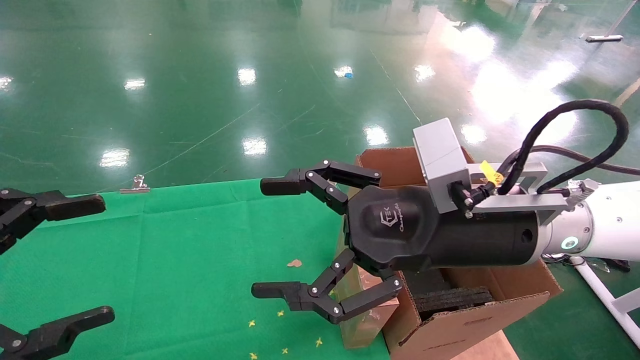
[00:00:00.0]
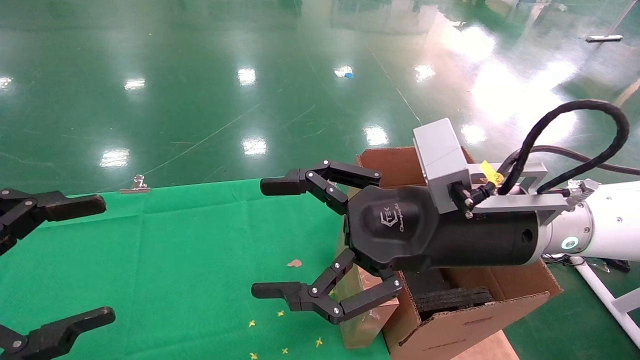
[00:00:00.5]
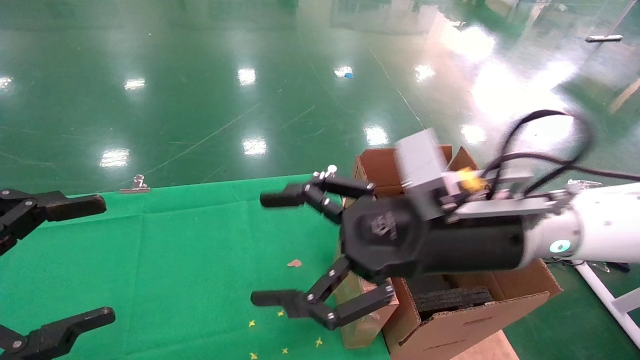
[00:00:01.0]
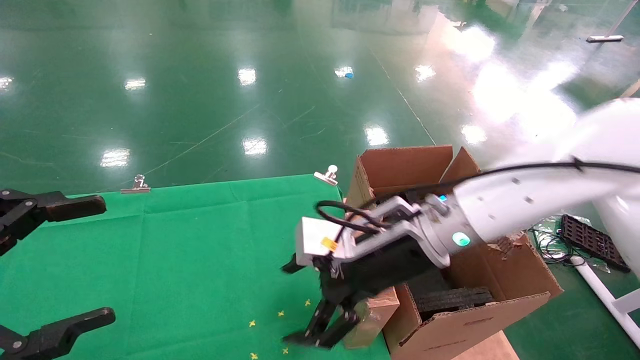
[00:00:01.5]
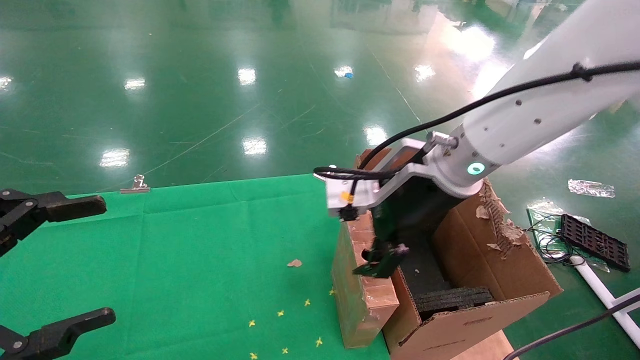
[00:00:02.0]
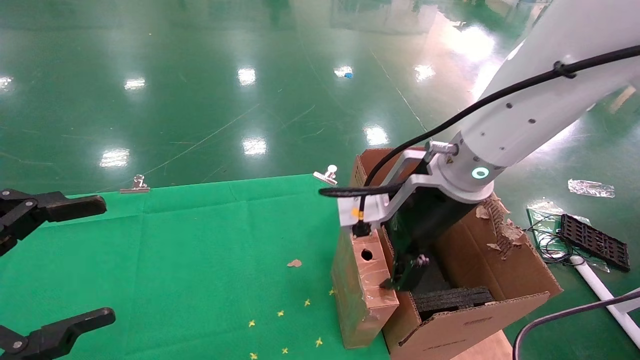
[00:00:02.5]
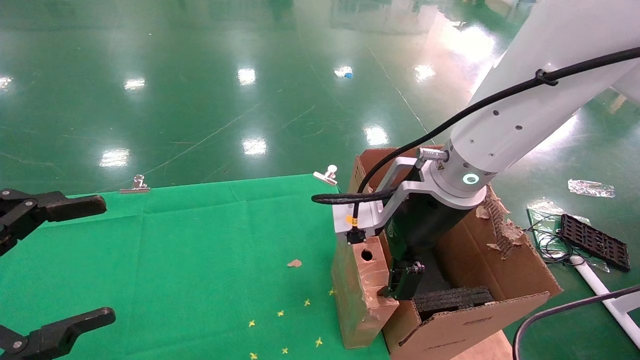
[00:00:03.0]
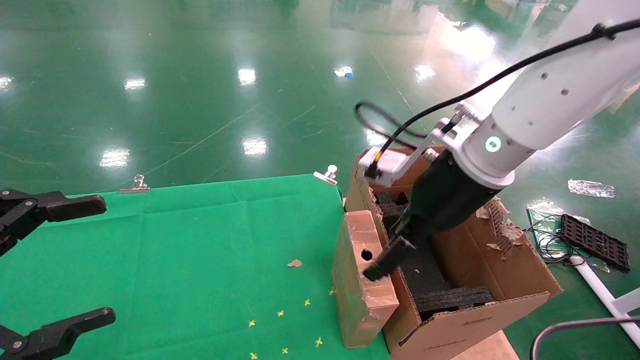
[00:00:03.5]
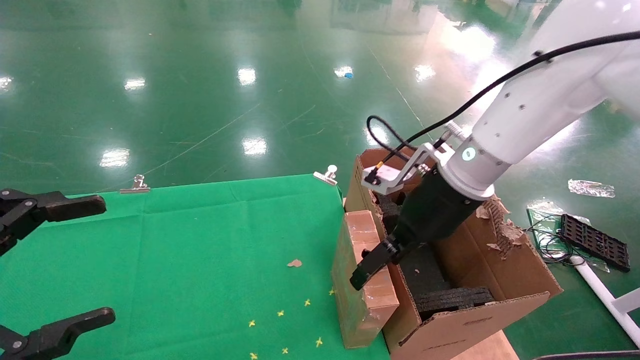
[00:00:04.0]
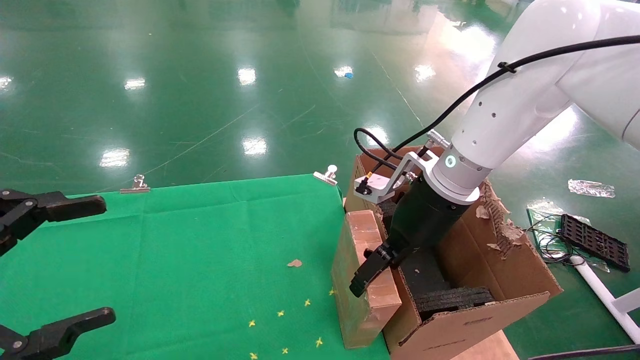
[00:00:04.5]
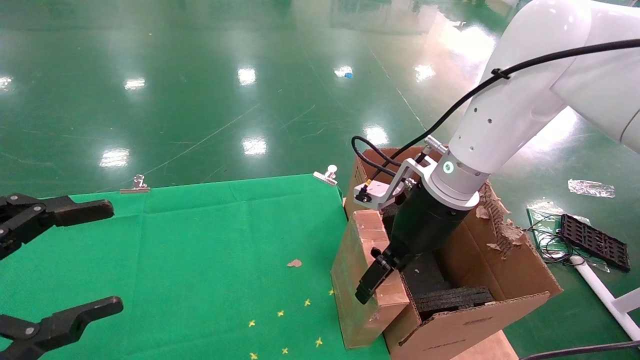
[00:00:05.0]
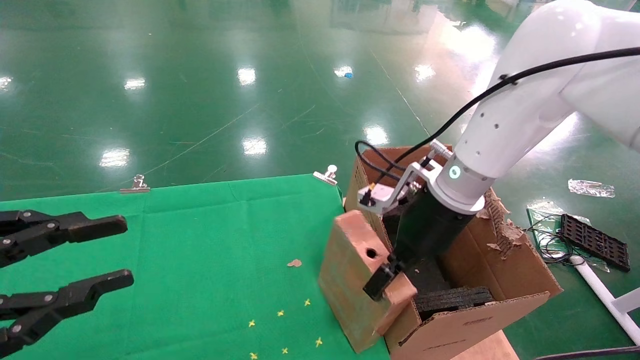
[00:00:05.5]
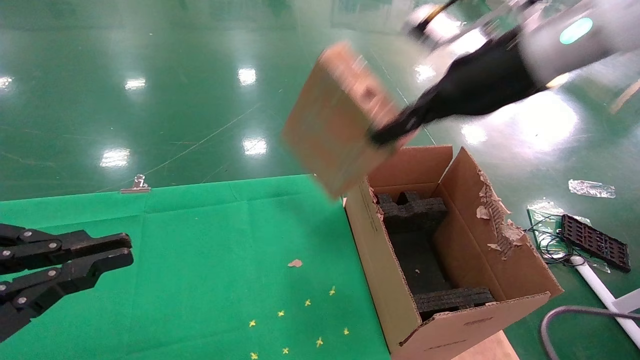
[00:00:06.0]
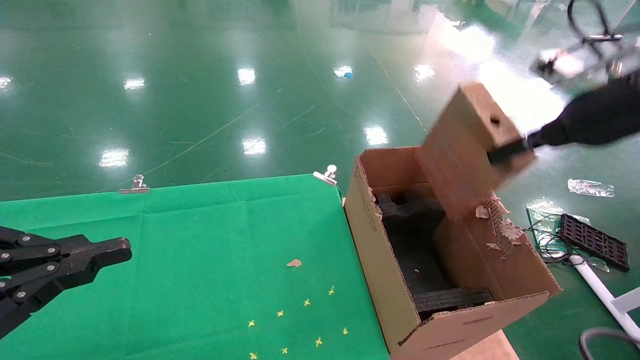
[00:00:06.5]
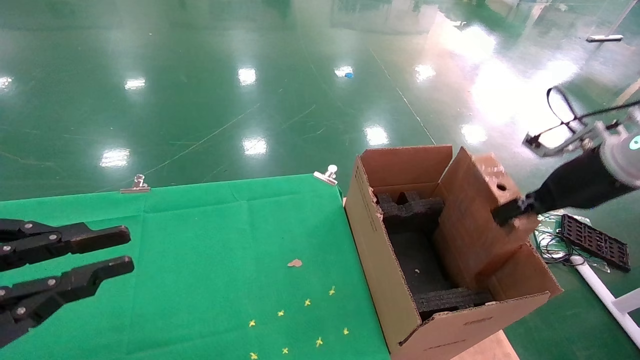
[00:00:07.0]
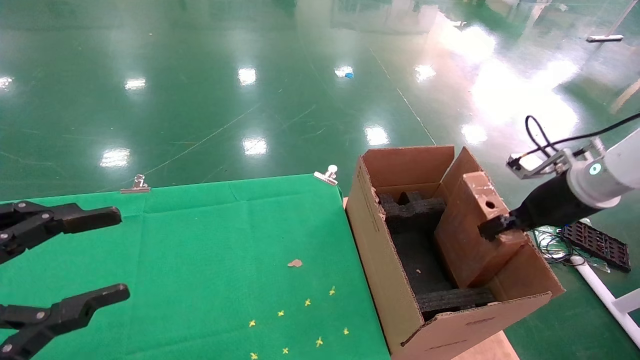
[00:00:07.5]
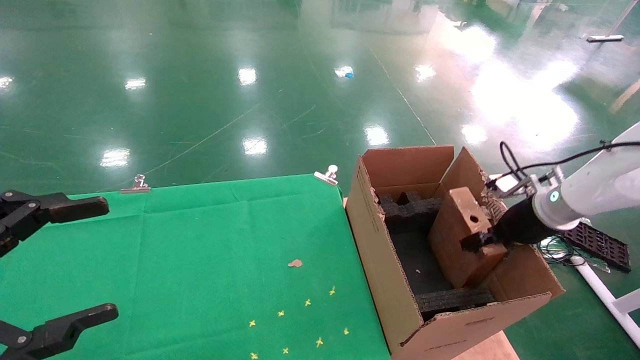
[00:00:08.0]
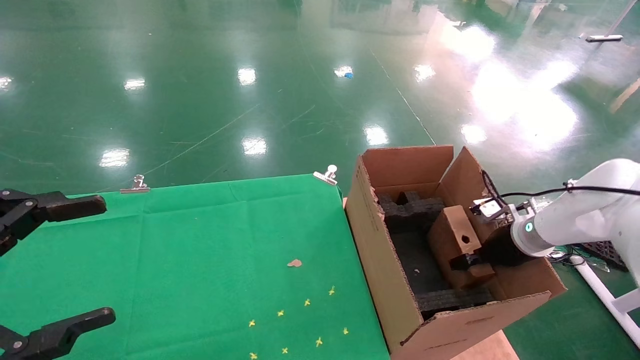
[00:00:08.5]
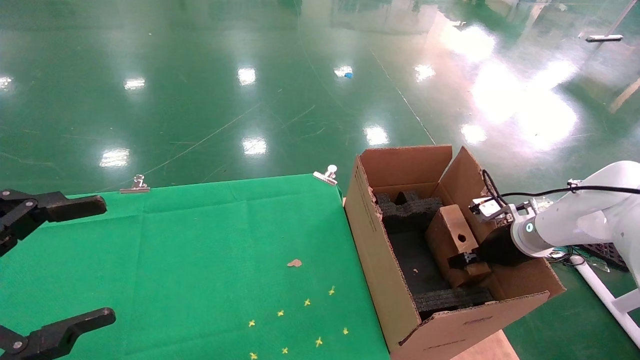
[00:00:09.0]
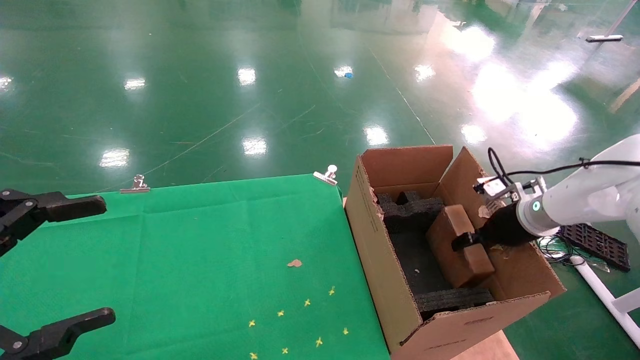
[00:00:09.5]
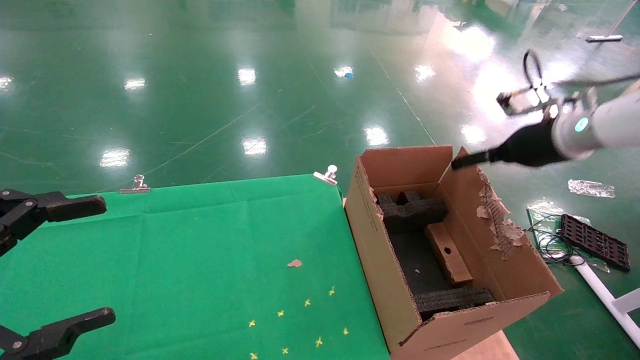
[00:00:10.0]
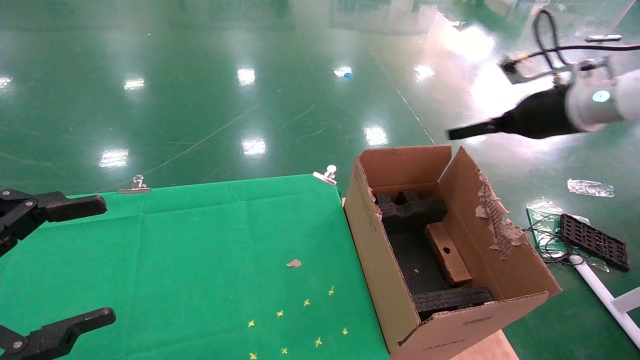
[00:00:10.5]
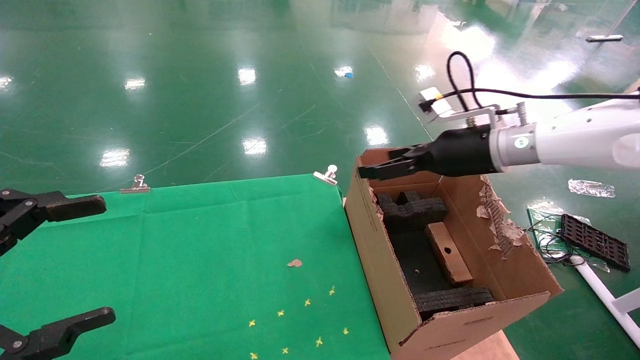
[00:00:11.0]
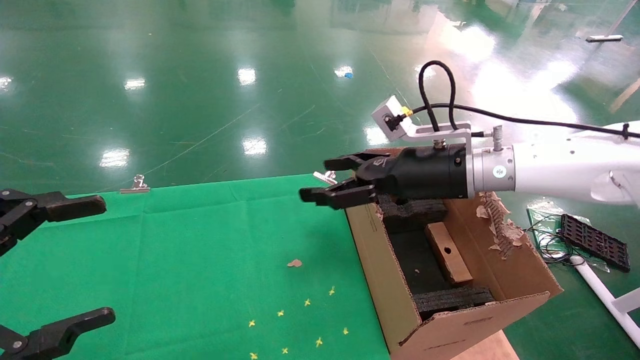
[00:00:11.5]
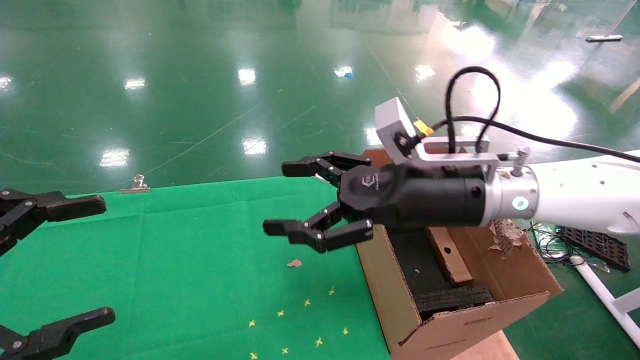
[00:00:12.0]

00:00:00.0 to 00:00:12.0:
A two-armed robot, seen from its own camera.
Task of the whole recording: using a robotic arm to pick up a cardboard box and palace it the carton.
Step, 00:00:01.0 to 00:00:05.5: Pick up the mouse and the power cord paper box.
Step, 00:00:06.0 to 00:00:10.0: Place the mouse and the power cord paper box into the container.
00:00:00.0 to 00:00:02.0: The right gripper travels forward by some 10 cm.
00:00:02.0 to 00:00:04.0: The right gripper shifts by roughly 5 cm.
00:00:04.0 to 00:00:06.0: The left gripper closes up; the right gripper moves upward and to the right, roughly 15 cm, and closes its fingers.
00:00:06.0 to 00:00:08.0: The left gripper opens its fingers; the right gripper heads downward and to the right, covering about 30 cm.
00:00:08.0 to 00:00:10.0: The right gripper heads upward, covering roughly 10 cm, and opens its fingers.
00:00:10.0 to 00:00:12.0: The right gripper heads to the left, covering some 25 cm.

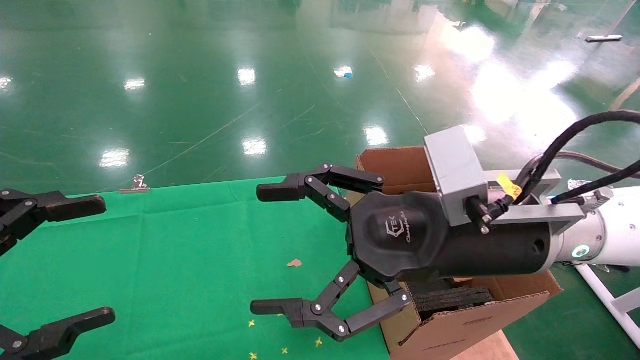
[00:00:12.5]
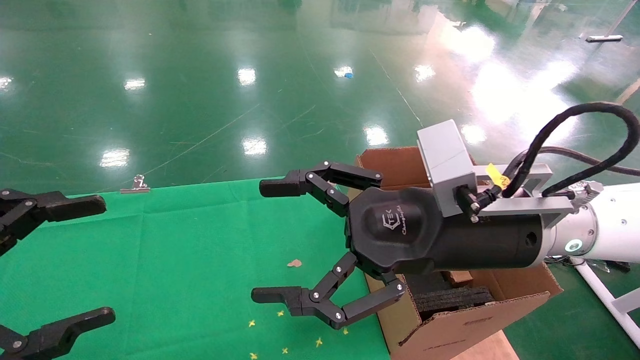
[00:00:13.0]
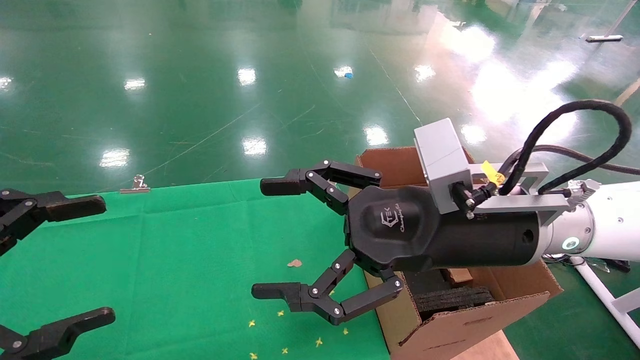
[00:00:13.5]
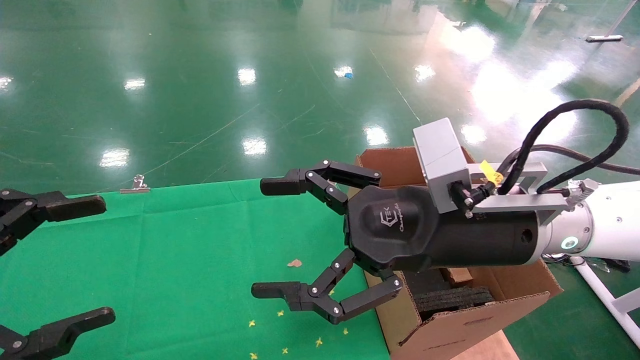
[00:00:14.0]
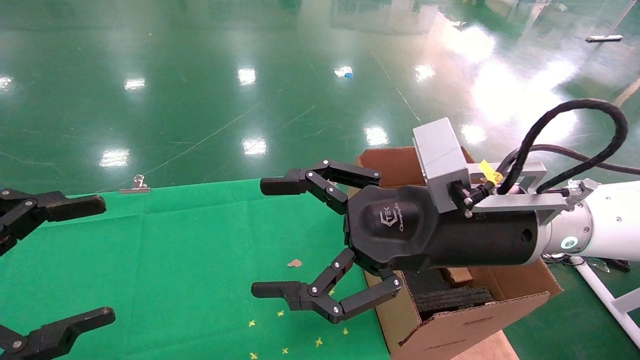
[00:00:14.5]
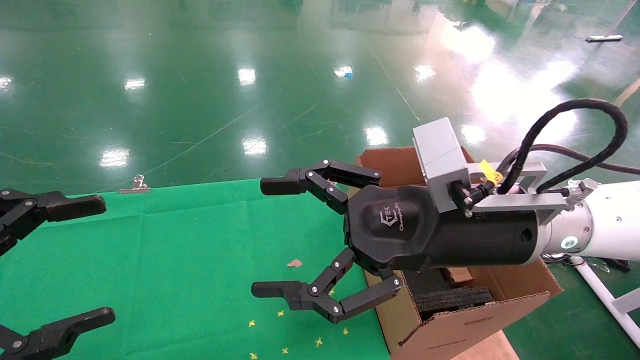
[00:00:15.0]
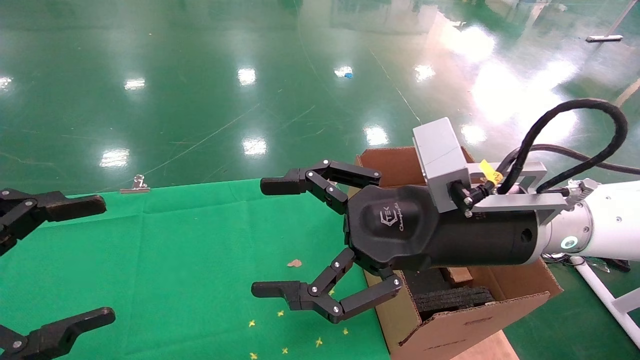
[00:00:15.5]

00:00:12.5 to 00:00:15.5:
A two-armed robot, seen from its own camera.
Task of the whole recording: using a robotic arm to pick up a cardboard box and palace it the carton.
00:00:12.5 to 00:00:15.5: Neither gripper changes place.
